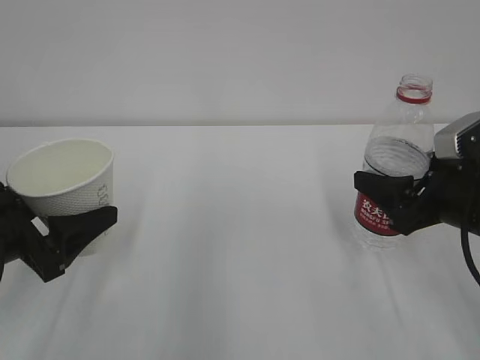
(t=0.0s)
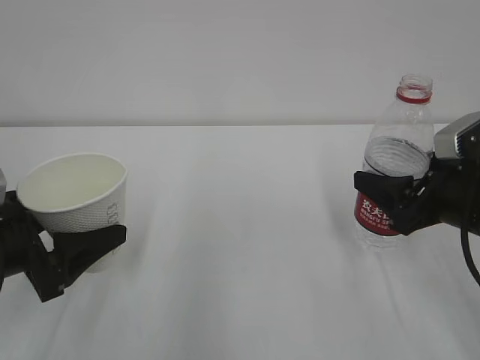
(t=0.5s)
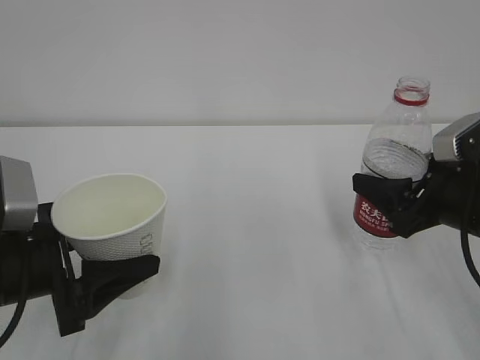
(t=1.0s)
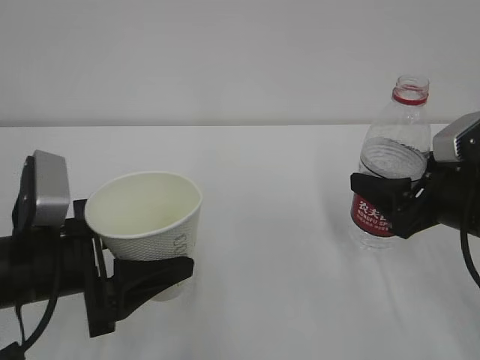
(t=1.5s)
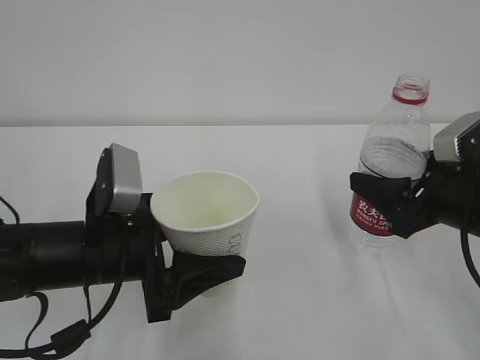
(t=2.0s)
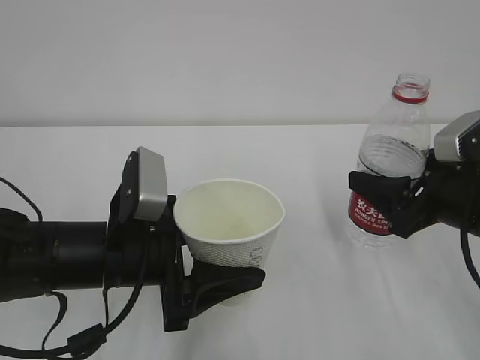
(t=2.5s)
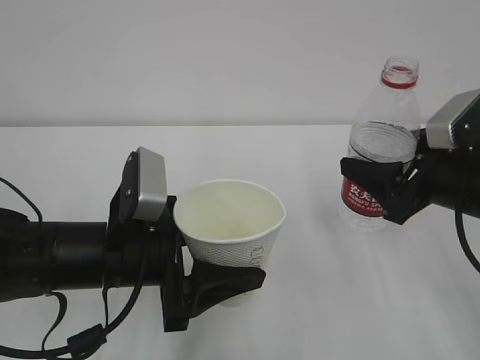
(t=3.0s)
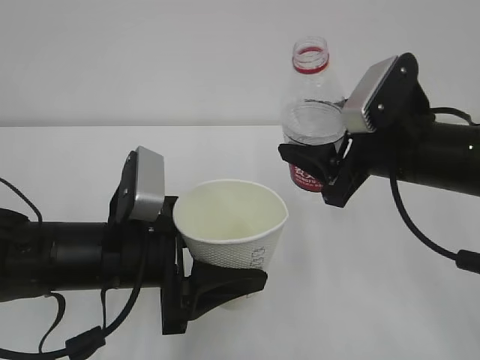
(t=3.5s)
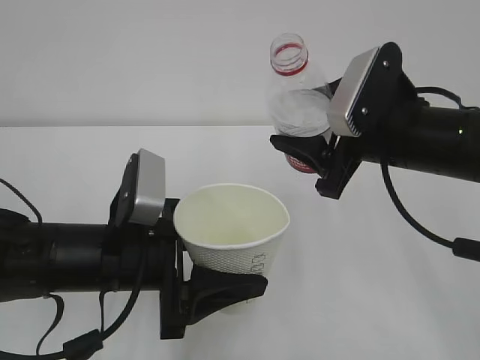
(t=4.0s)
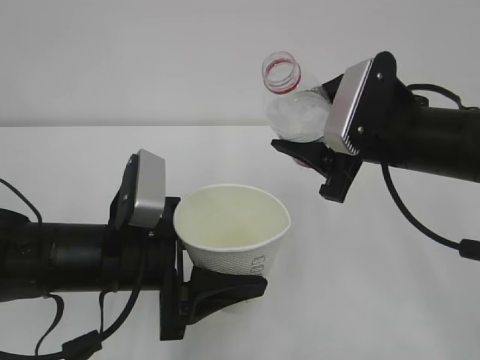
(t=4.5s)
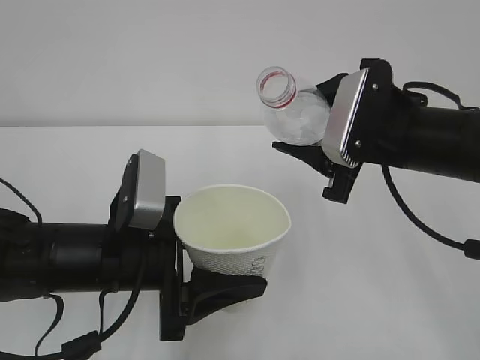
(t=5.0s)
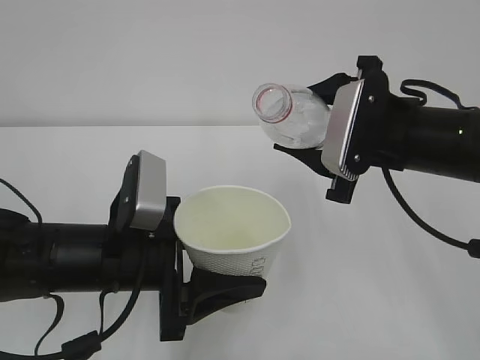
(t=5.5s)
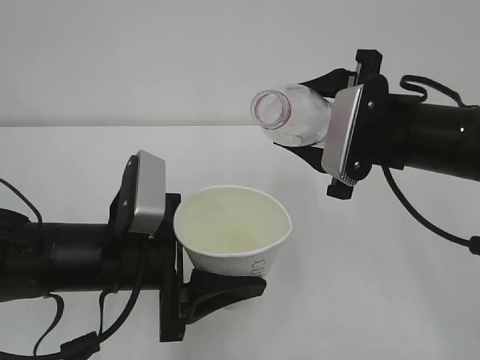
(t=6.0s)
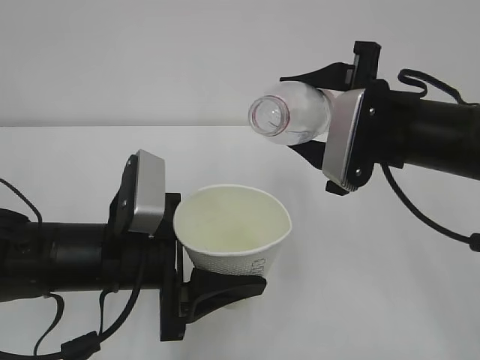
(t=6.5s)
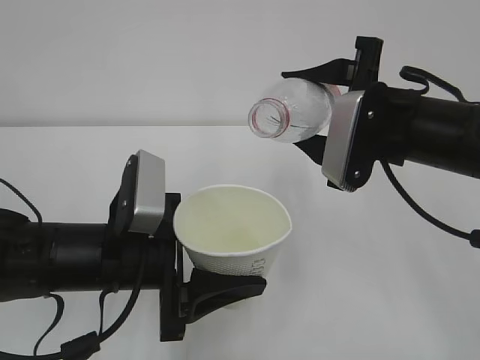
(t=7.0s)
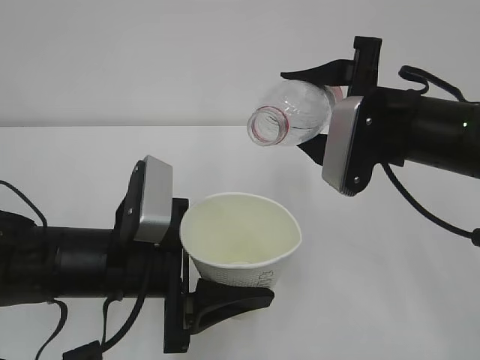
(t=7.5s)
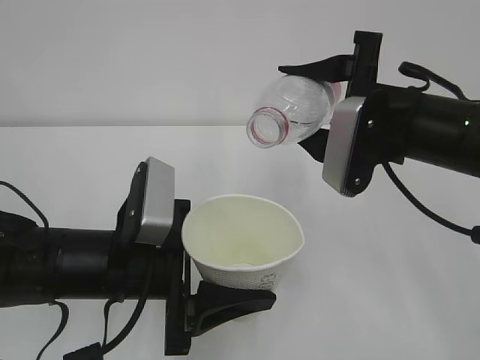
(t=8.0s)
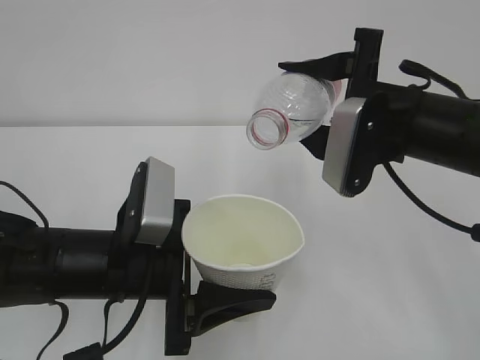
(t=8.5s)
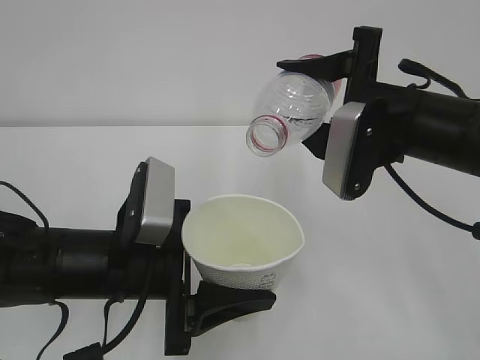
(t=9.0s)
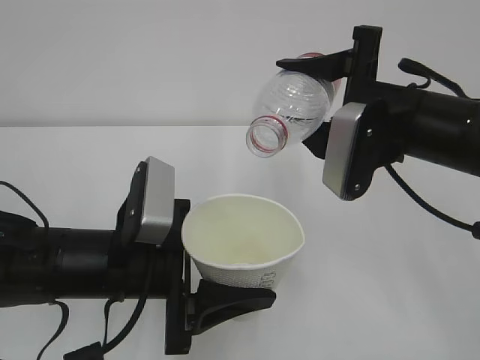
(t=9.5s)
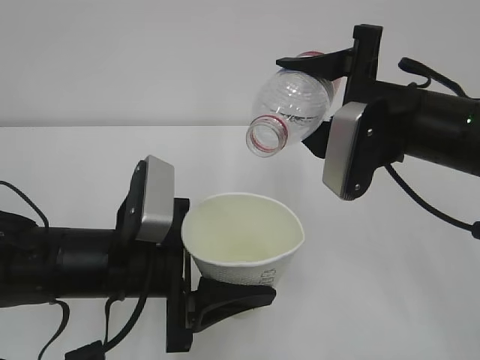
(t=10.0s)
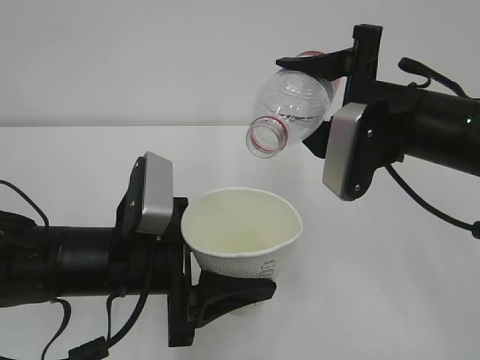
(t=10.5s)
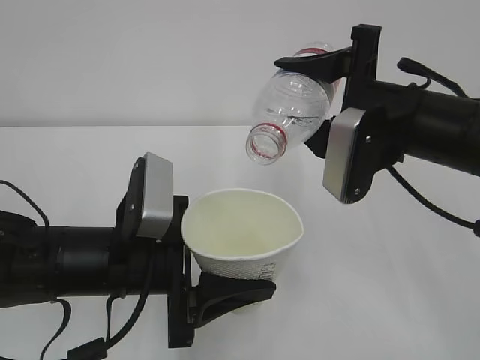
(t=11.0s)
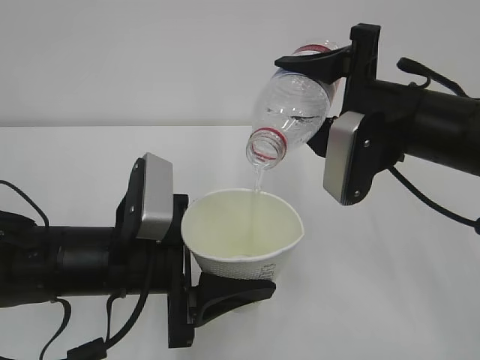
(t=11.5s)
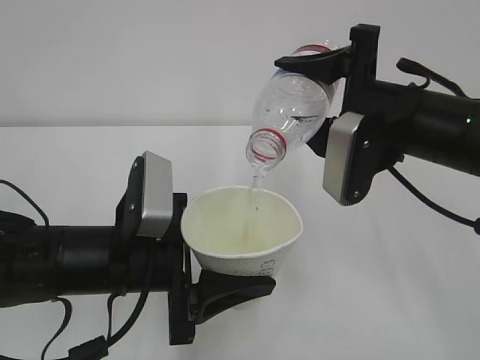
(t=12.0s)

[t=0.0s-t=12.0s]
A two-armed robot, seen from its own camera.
t=0.0s to t=2.0s: The left gripper travels to the right by some 10 cm.
t=2.0s to t=4.0s: The right gripper heads to the left and upward, covering approximately 10 cm.
t=6.0s to t=8.0s: The grippers stay close to where they were, moving slightly.
t=8.0s to t=12.0s: The grippers make only small movements.

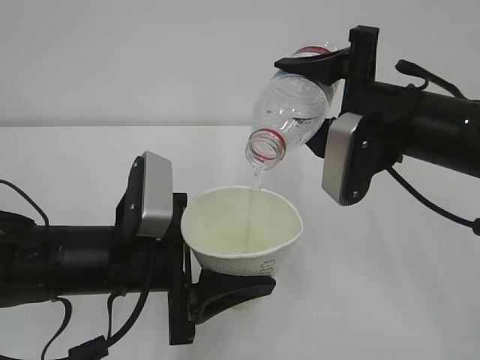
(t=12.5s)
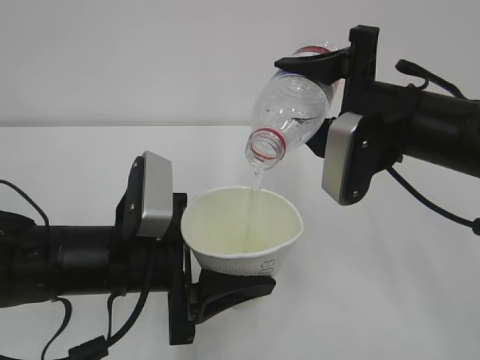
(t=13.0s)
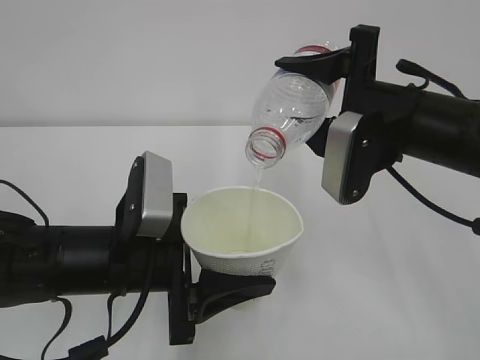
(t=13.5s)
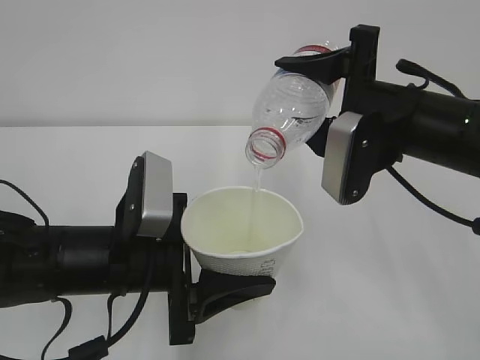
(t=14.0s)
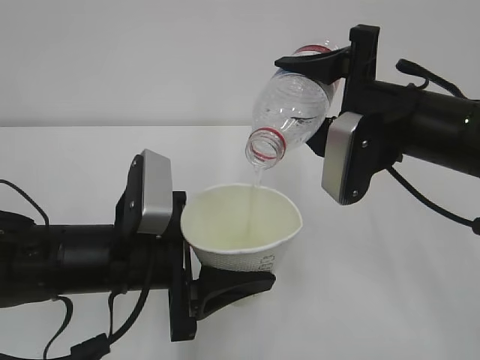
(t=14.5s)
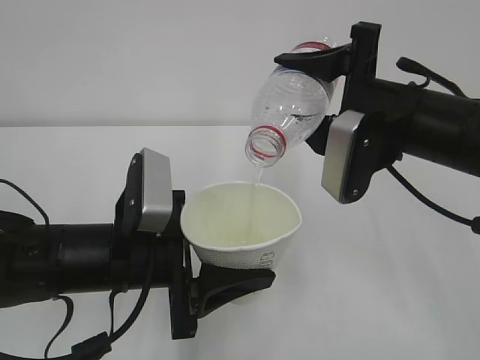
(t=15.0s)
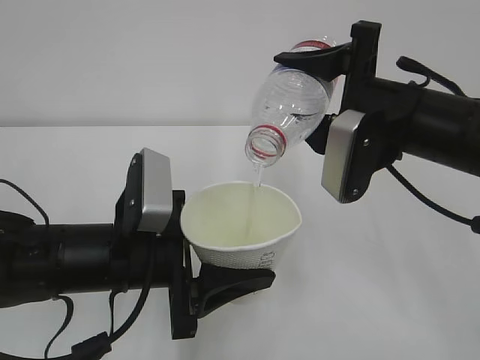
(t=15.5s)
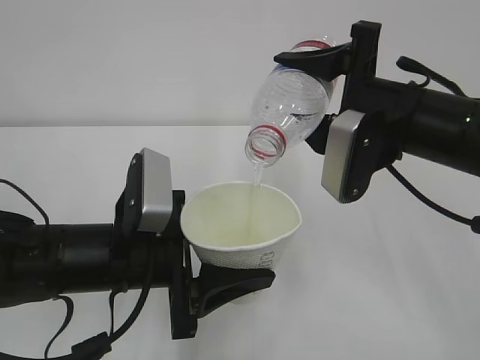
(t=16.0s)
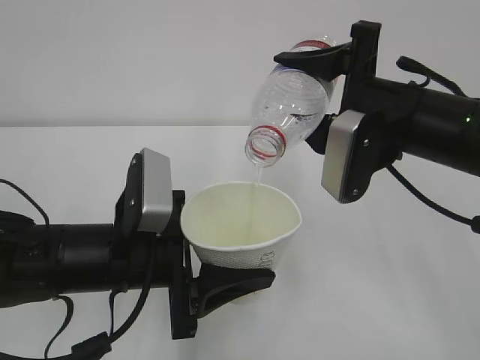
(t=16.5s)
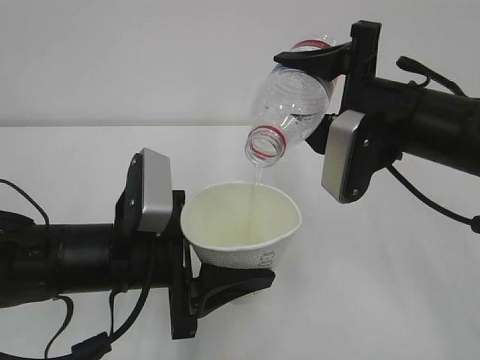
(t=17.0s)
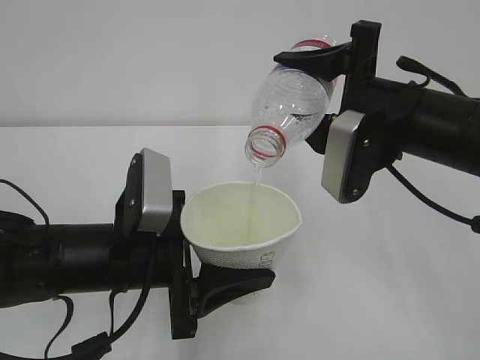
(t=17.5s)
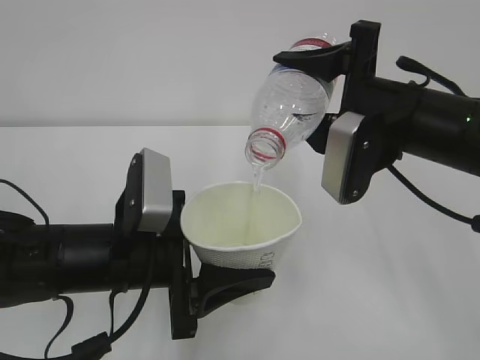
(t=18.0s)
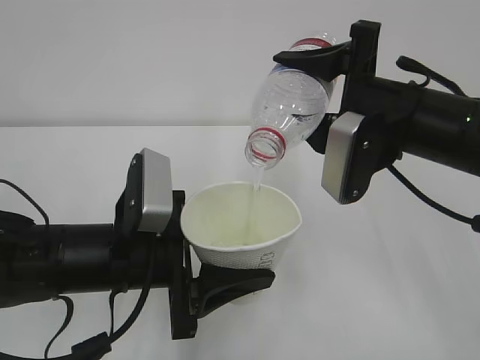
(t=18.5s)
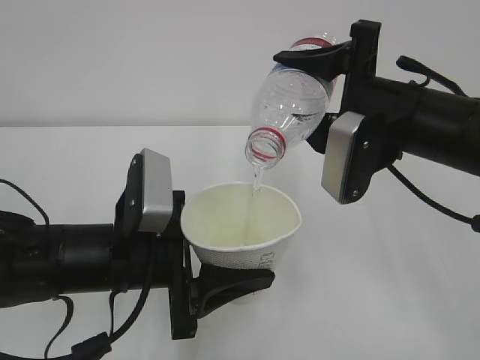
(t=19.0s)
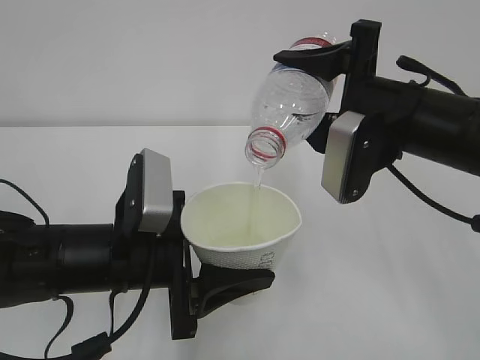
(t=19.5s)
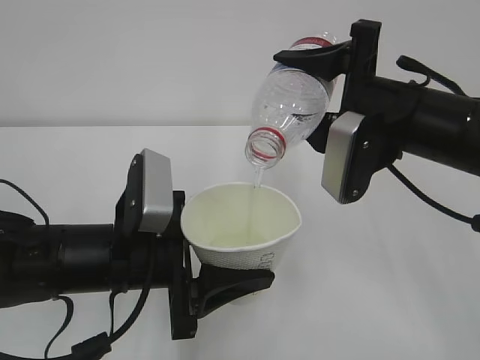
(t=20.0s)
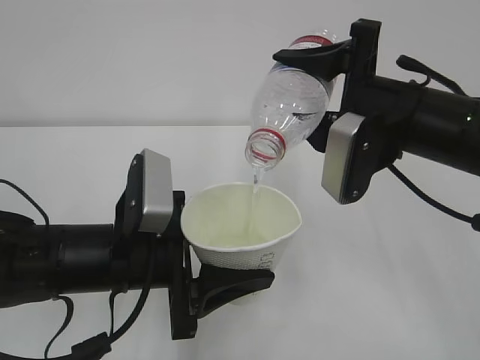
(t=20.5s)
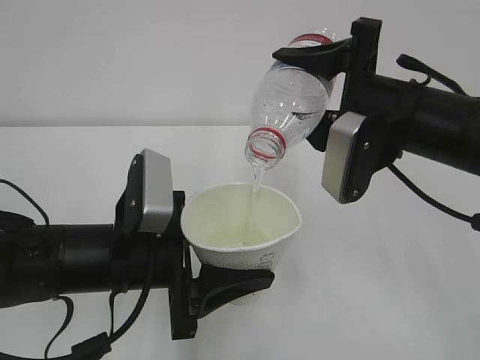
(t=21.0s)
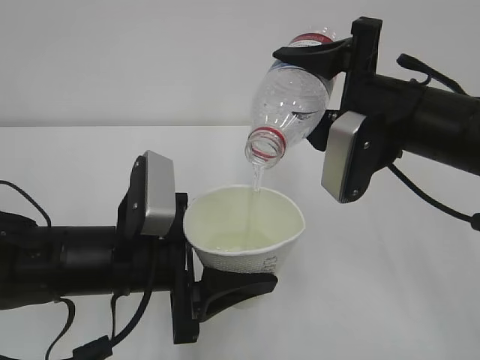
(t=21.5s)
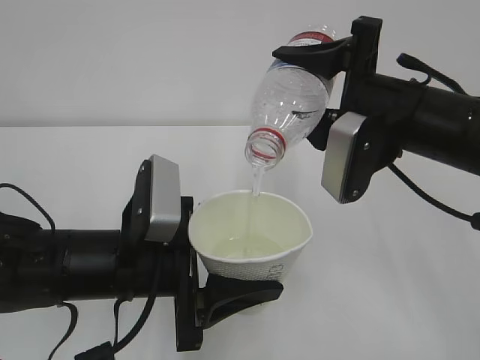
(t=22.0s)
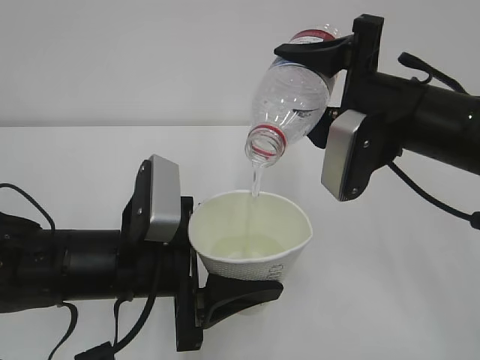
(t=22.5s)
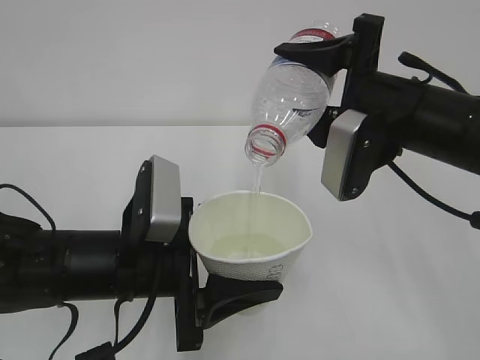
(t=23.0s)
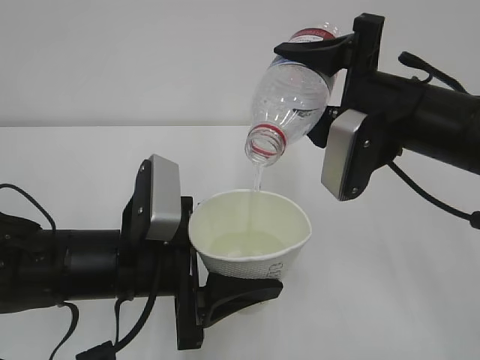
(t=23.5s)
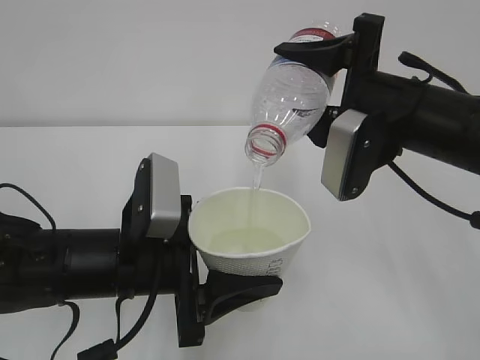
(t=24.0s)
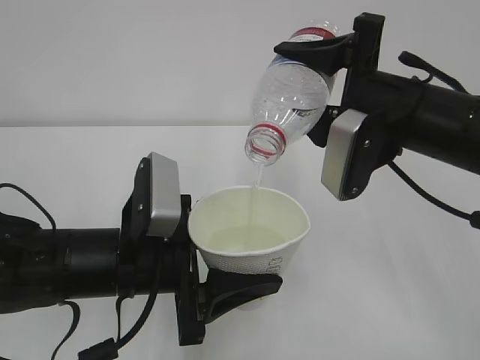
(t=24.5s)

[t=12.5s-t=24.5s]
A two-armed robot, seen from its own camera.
t=12.5s to t=20.5s: Both grippers stay about where they are.
t=20.5s to t=24.5s: Neither gripper changes place.

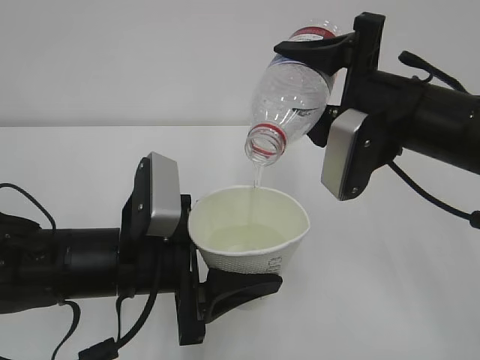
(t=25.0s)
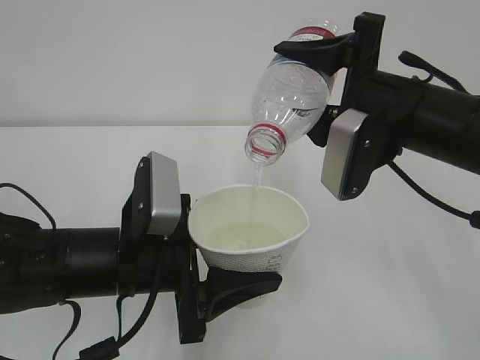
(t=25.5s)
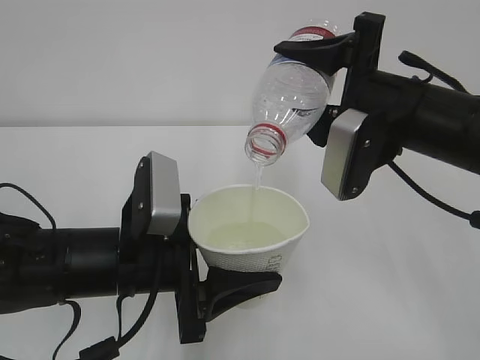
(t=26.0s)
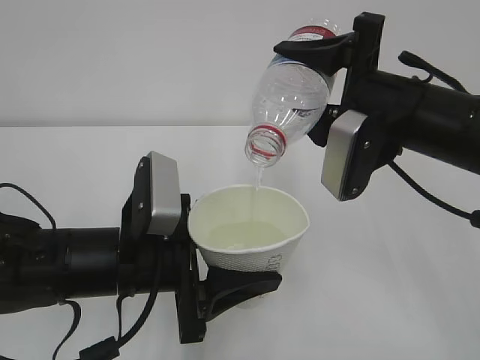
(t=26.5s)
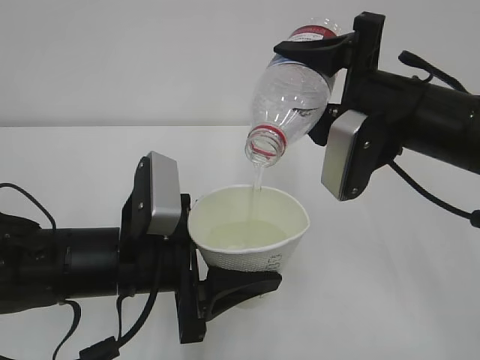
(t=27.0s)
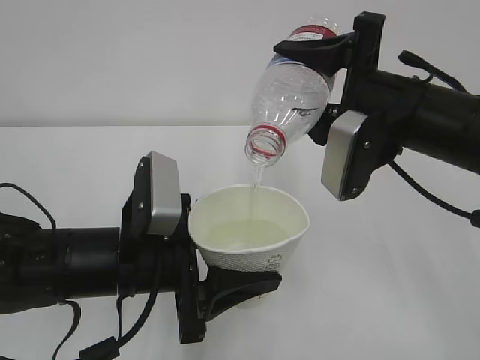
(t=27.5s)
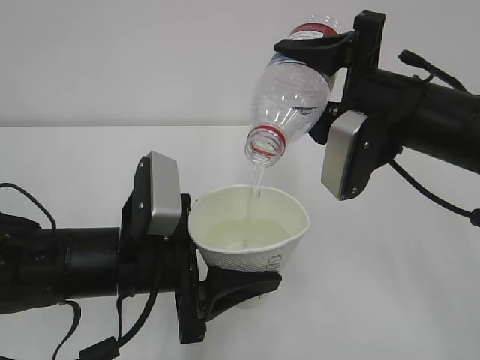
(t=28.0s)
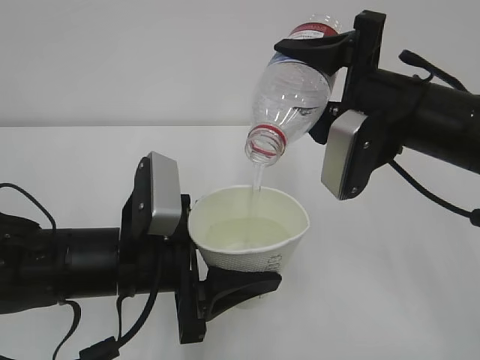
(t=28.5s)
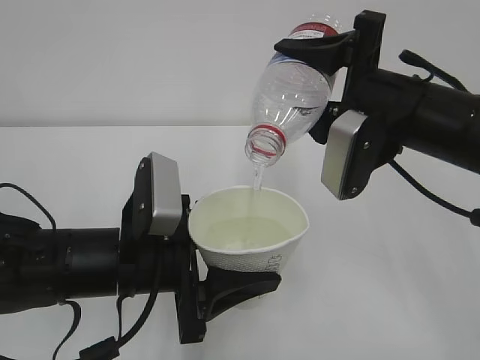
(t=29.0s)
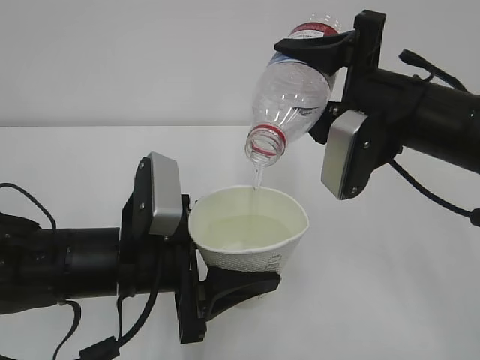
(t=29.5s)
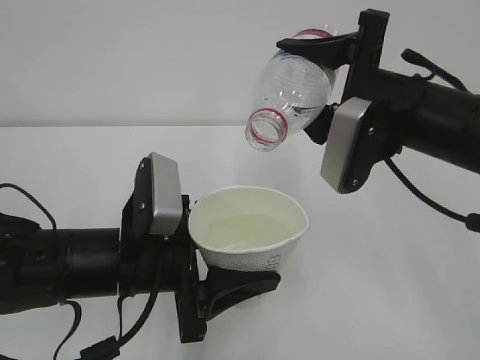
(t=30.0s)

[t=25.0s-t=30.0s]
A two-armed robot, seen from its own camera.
t=25.0s to t=27.5s: The two grippers keep their place.
t=27.5s to t=30.0s: The grippers make only small movements.
